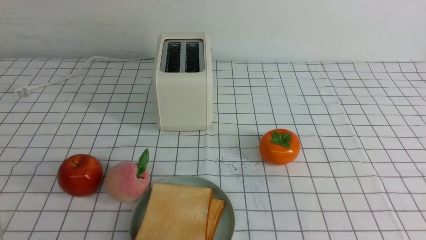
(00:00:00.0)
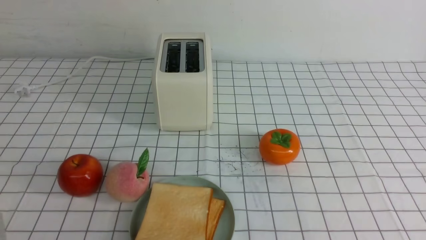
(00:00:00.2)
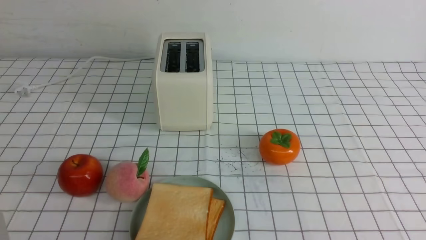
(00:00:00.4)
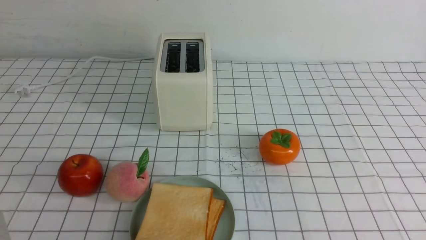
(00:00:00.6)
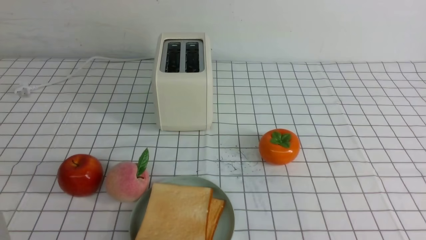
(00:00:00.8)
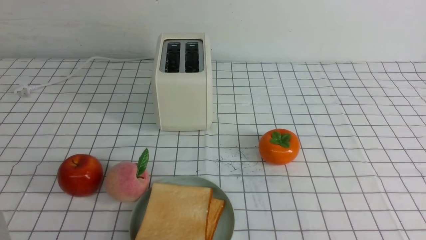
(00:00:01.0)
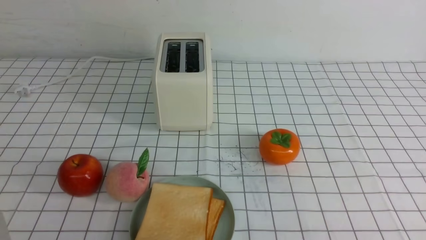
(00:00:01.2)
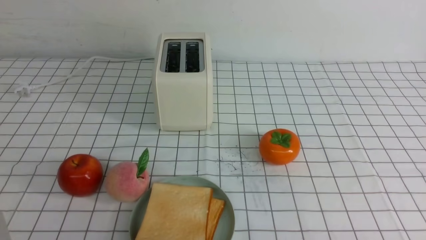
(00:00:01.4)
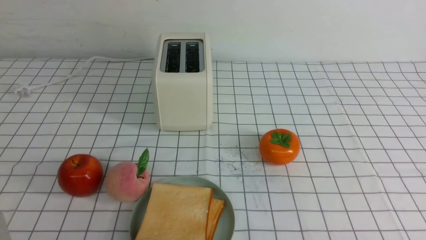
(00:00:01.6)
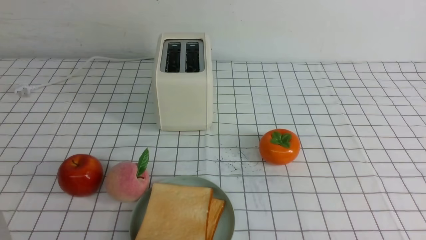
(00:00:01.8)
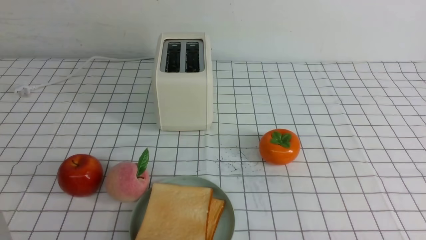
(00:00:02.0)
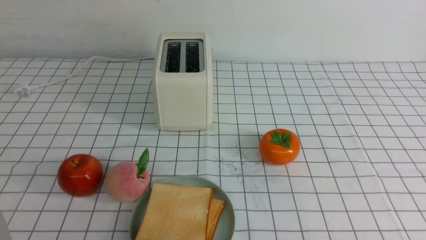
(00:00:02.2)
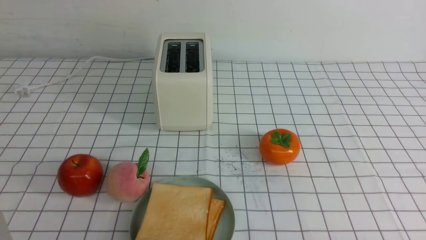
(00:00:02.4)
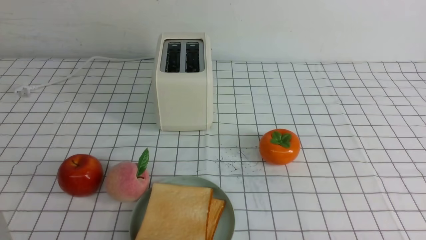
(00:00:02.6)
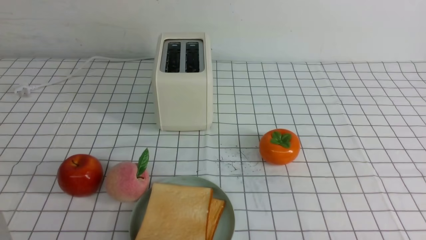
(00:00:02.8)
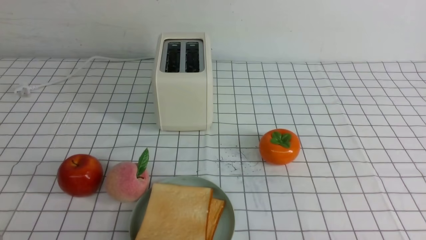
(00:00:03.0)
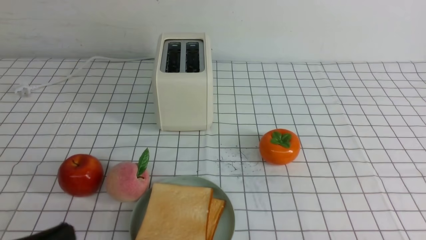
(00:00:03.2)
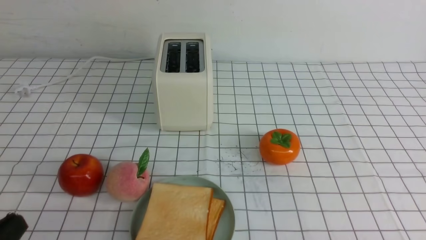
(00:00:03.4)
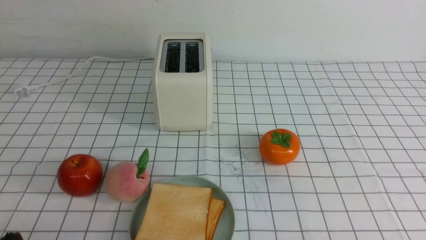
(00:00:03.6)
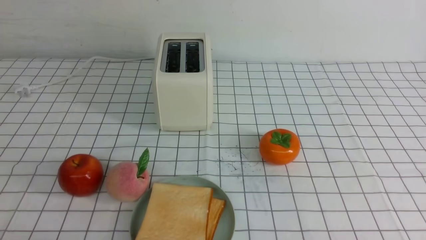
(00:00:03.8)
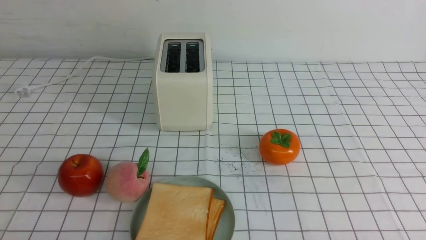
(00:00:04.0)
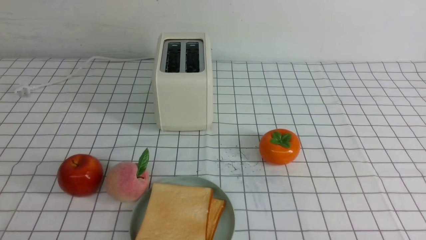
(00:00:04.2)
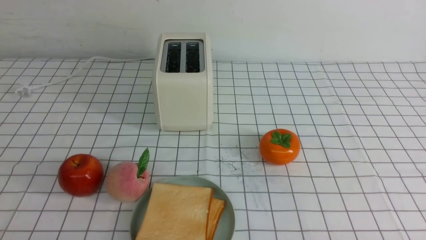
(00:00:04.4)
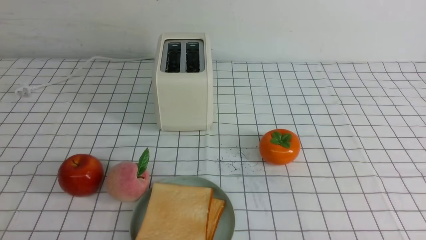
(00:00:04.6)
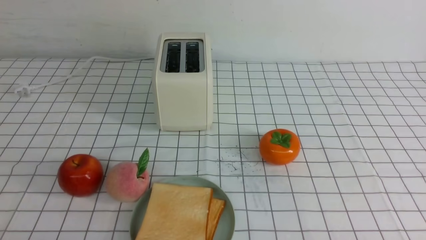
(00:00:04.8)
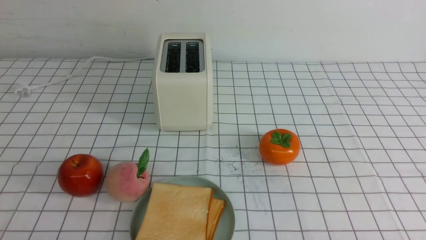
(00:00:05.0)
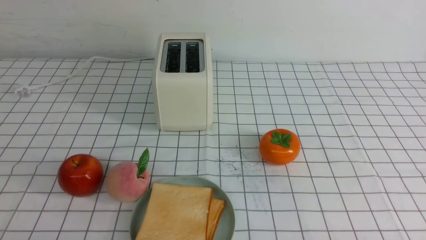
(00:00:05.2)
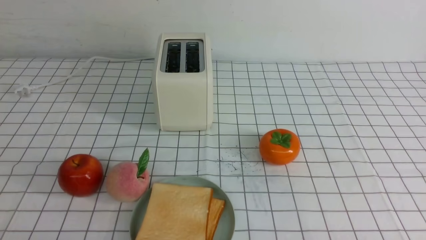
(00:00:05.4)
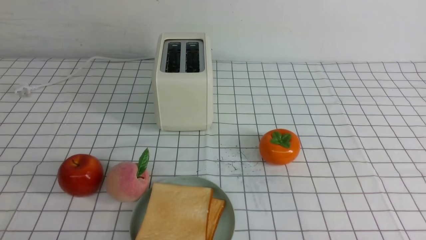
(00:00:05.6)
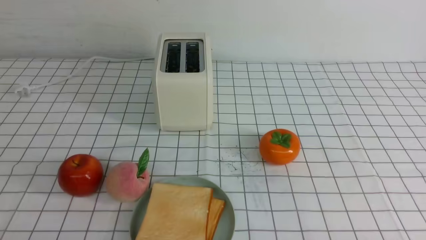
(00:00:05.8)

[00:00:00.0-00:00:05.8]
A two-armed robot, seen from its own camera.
Task of the whole recording: take toasted bread from bread machine on white checkered table place on plate.
00:00:01.4 to 00:00:02.8: Neither gripper changes place.
00:00:04.4 to 00:00:05.8: Both grippers stay about where they are.

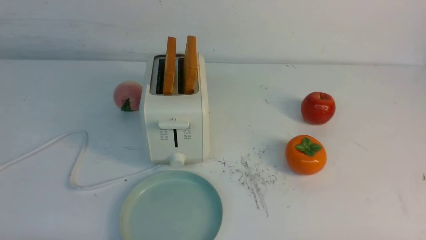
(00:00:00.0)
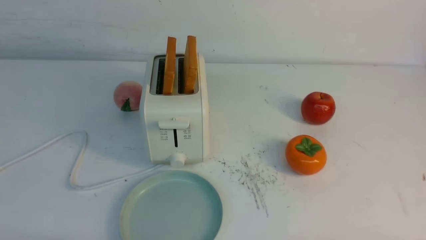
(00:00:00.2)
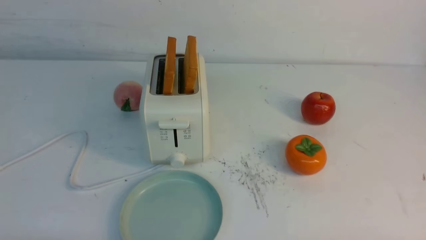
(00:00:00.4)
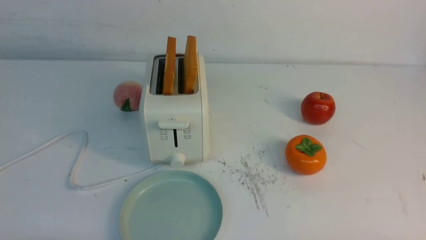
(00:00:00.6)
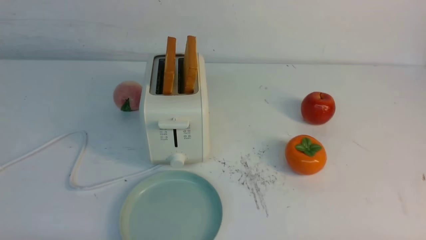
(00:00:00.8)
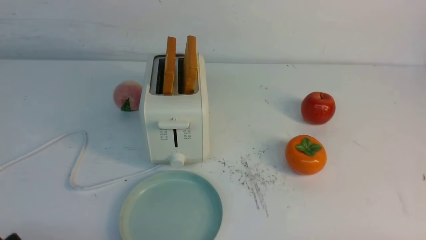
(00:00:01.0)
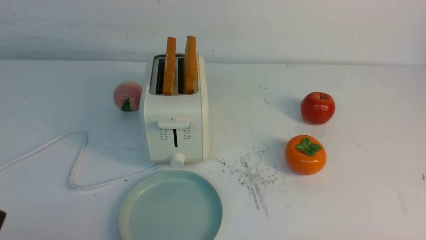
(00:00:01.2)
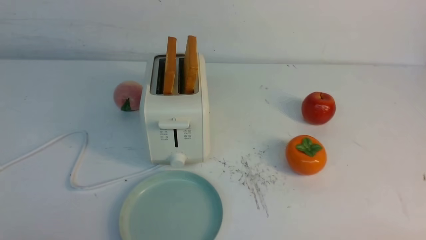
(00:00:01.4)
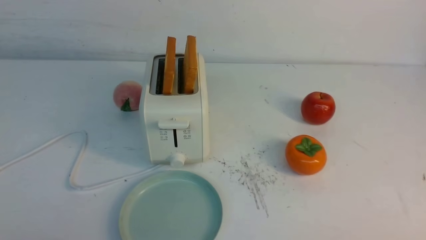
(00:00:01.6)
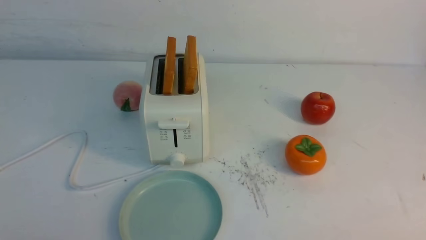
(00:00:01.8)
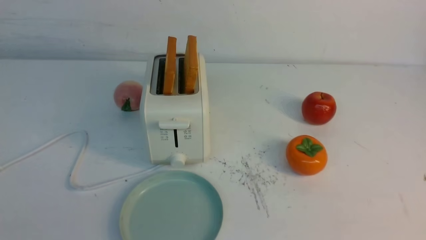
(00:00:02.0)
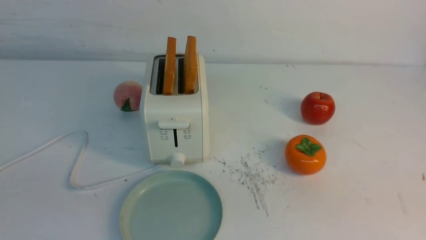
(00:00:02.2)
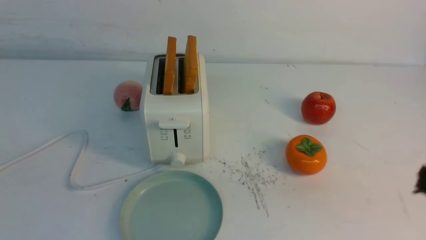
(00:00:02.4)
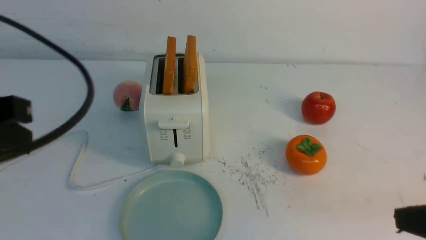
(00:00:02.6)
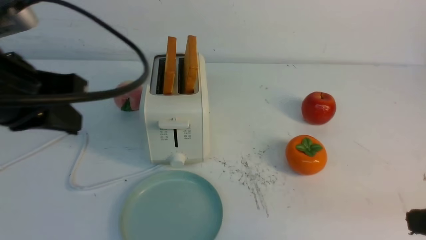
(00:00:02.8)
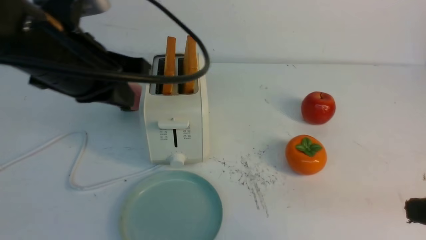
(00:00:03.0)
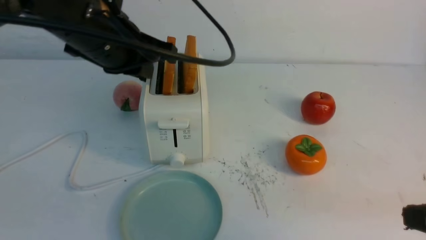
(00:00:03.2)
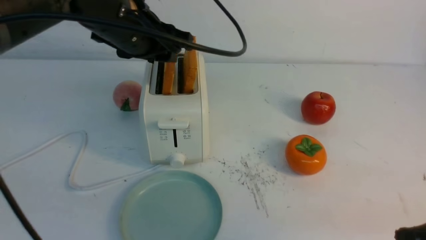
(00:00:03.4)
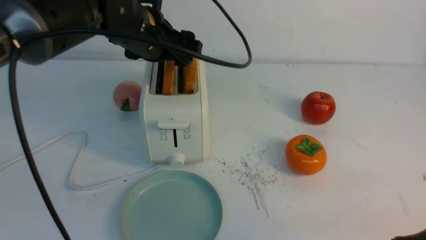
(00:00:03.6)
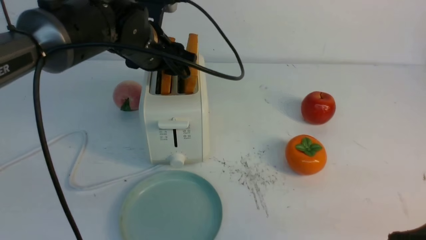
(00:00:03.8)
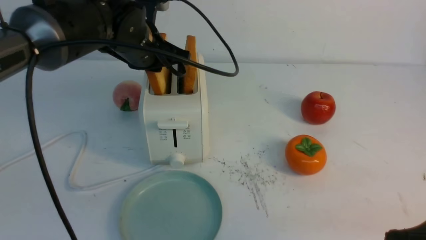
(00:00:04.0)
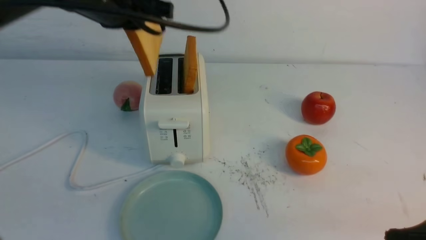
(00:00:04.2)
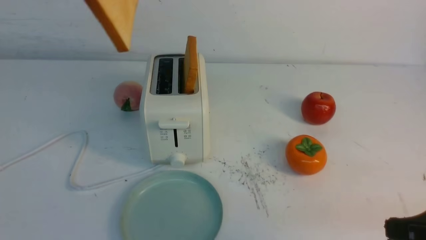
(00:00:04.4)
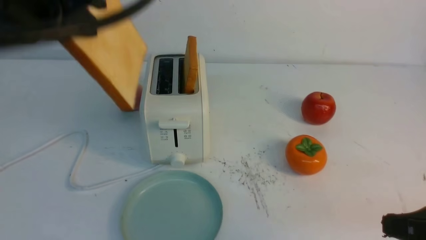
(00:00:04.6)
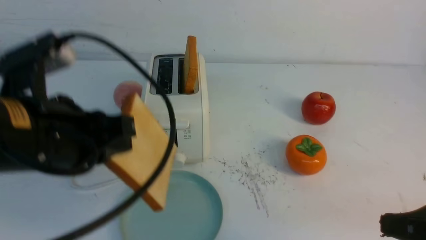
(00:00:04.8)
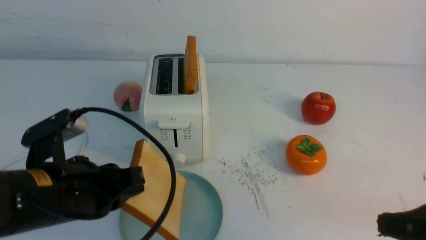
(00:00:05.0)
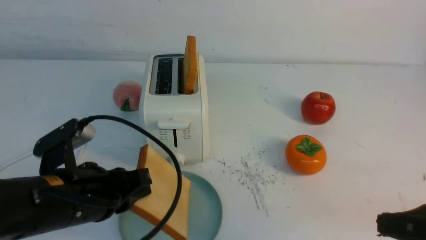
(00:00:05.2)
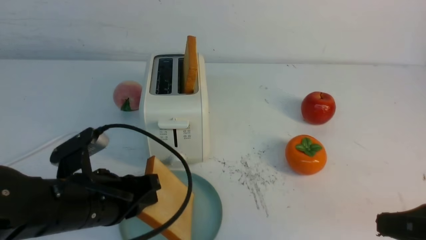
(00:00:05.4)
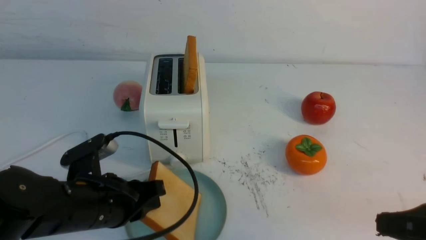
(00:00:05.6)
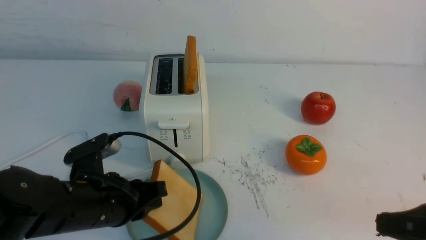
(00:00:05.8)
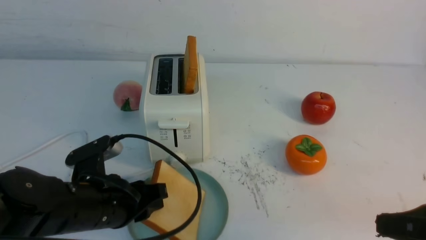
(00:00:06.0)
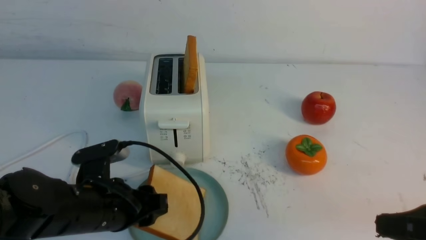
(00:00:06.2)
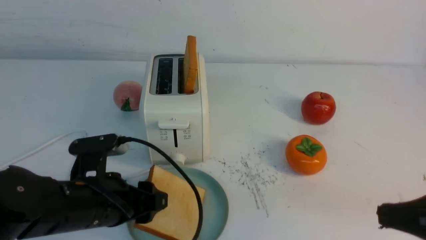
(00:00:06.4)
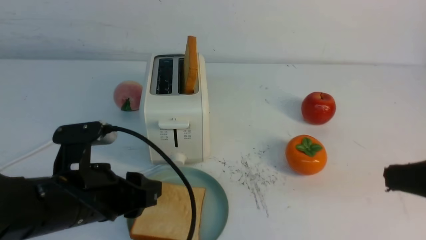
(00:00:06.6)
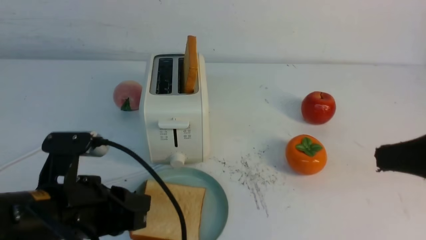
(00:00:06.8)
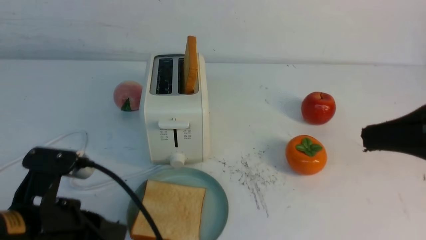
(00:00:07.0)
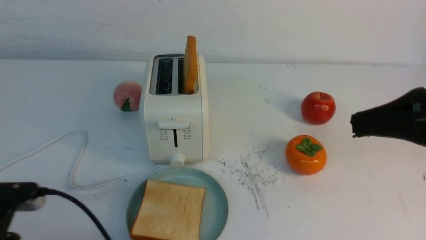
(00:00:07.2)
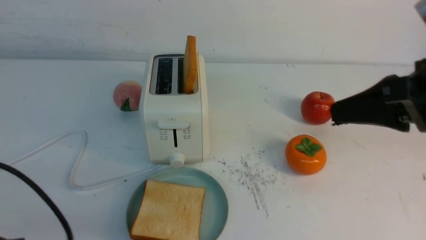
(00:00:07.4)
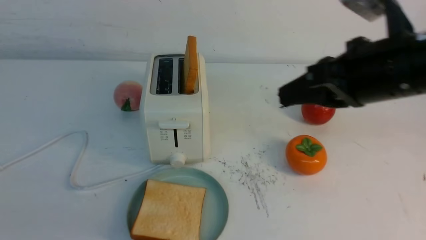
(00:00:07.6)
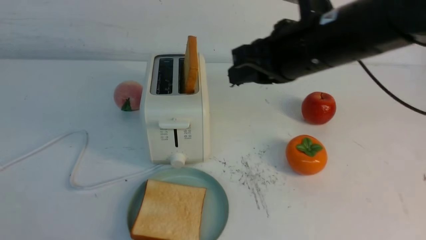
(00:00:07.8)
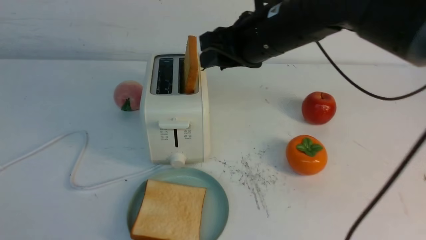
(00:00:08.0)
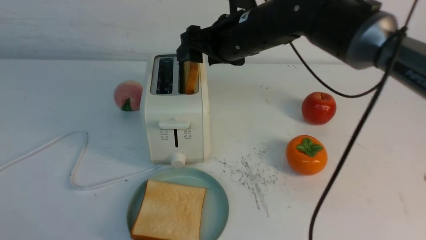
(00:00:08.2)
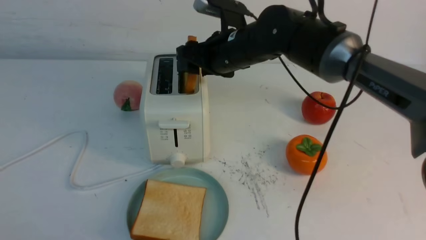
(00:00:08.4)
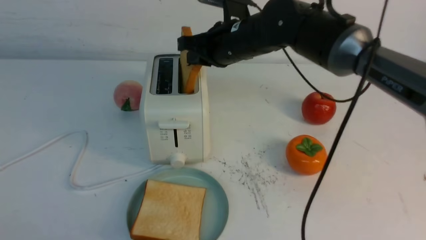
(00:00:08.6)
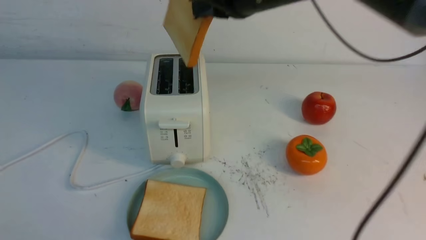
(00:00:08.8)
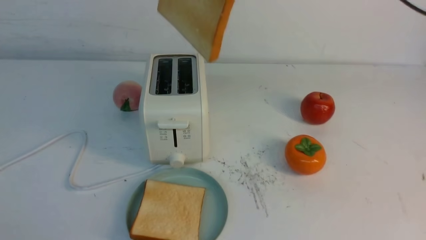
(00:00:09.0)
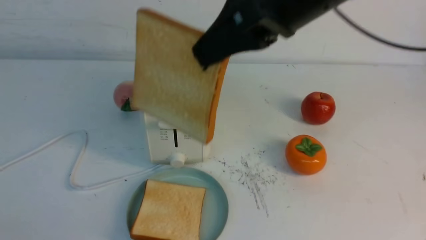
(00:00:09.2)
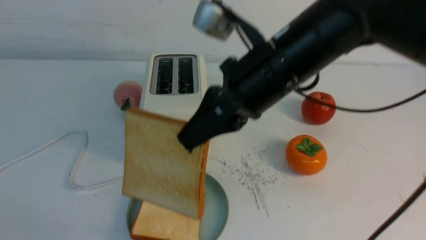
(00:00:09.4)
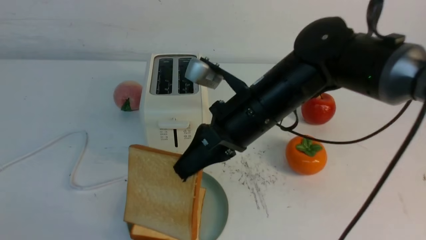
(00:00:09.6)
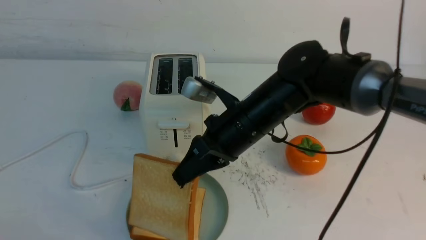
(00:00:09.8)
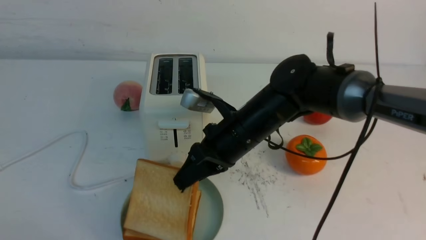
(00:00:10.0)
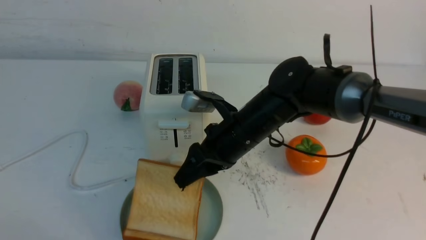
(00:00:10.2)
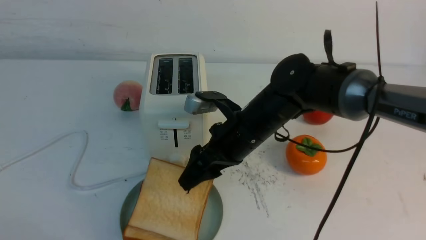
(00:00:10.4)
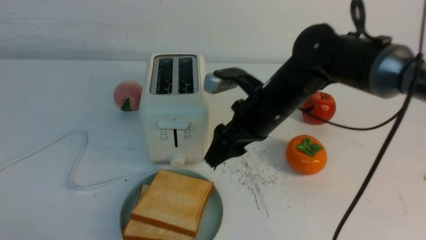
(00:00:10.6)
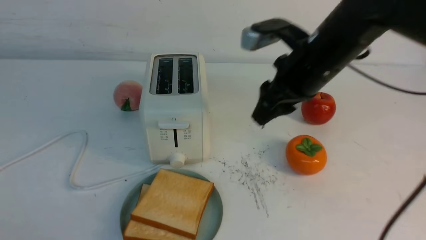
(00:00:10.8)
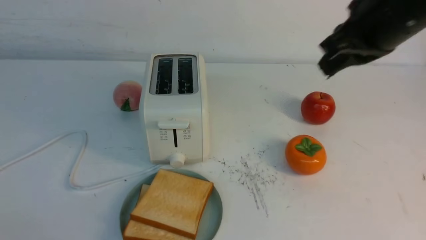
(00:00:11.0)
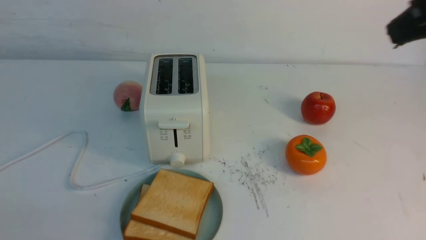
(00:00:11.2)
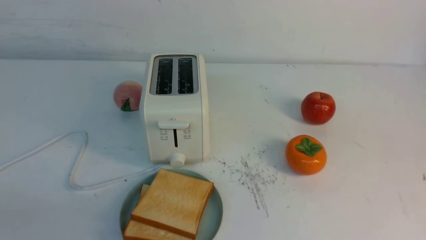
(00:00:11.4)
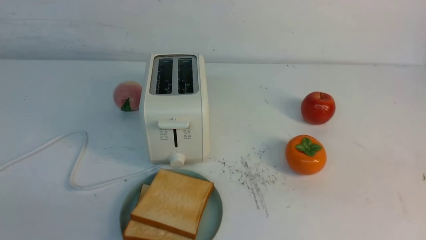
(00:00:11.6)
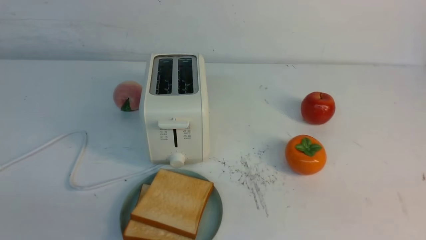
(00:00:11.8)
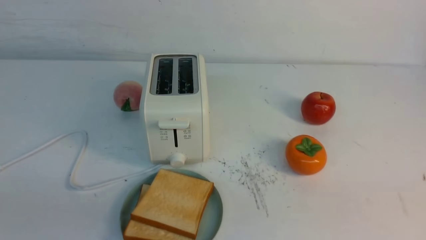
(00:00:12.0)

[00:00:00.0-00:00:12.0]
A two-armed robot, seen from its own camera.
Task of the whole recording: take toasted bread from bread machine on white table place on plate.
Step, 00:00:00.0 to 00:00:04.0: use the left arm to take out a slice of bread.
Step, 00:00:04.2 to 00:00:06.4: use the left arm to put a slice of bread into the empty plate.
Step, 00:00:06.8 to 00:00:08.6: use the right arm to take out a slice of bread.
Step, 00:00:08.8 to 00:00:10.4: use the right arm to put a slice of bread into the plate.
00:00:01.6 to 00:00:03.0: The right gripper goes roughly 15 cm upward and forward, and closes, while the left gripper travels forward, upward and to the right by about 30 cm, and closes its fingers.
00:00:03.0 to 00:00:04.4: The left gripper shifts about 5 cm upward, goes forward and returns, about 10 cm each way, and opens, then closes once more.
00:00:04.4 to 00:00:06.0: The left gripper moves downward, about 25 cm, and opens up.
00:00:06.0 to 00:00:07.6: The left gripper is displaced backward, upward and to the left by some 25 cm, and closes its fingers. Meanwhile the right gripper goes roughly 20 cm forward, upward and to the left.
00:00:07.6 to 00:00:09.0: The left gripper is displaced backward by some 5 cm. Meanwhile the right gripper goes some 10 cm to the left and upward, reaches about 15 cm forward, then returns, and opens, then closes again.
00:00:09.0 to 00:00:10.4: The right gripper travels downward by roughly 20 cm, and opens its fingers.
00:00:10.4 to 00:00:12.0: The right gripper shifts approximately 35 cm backward and to the right, and closes up.
